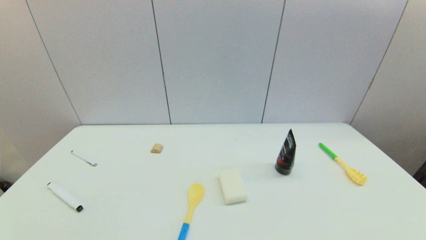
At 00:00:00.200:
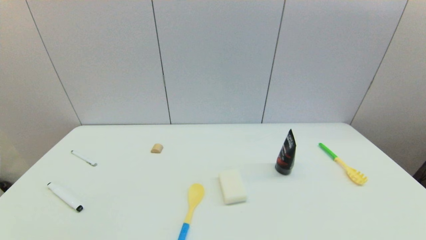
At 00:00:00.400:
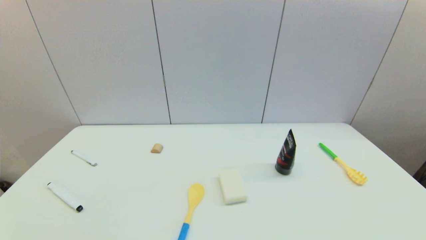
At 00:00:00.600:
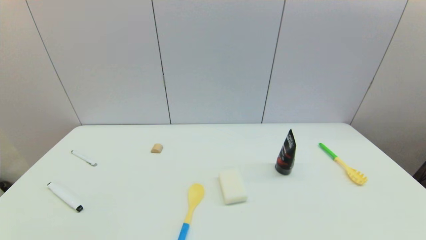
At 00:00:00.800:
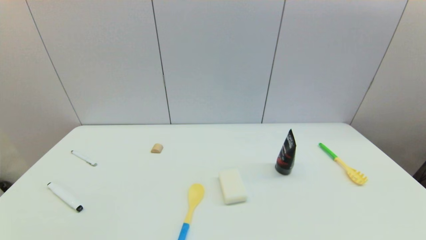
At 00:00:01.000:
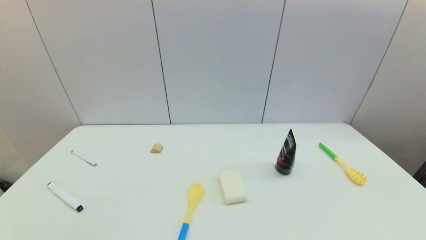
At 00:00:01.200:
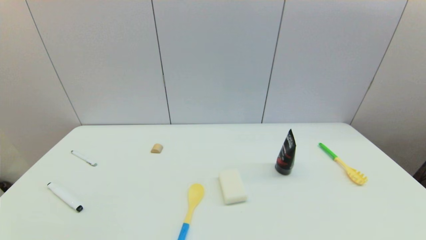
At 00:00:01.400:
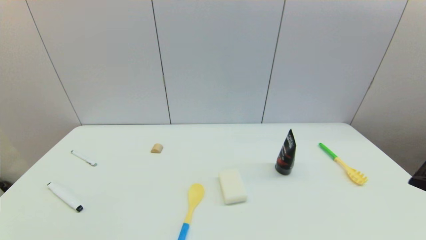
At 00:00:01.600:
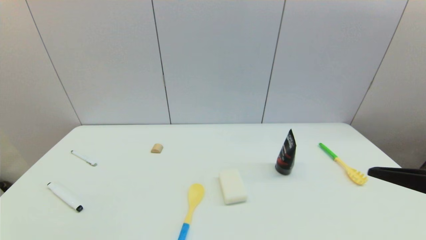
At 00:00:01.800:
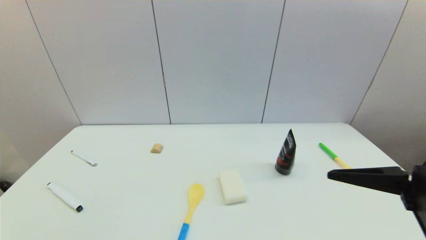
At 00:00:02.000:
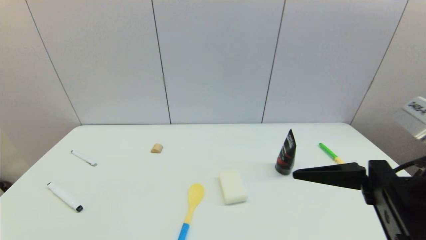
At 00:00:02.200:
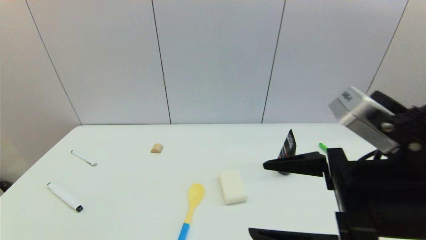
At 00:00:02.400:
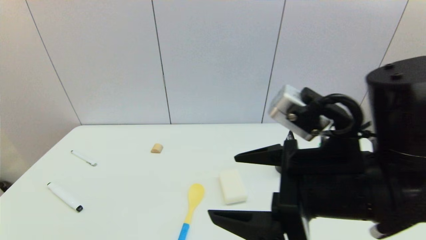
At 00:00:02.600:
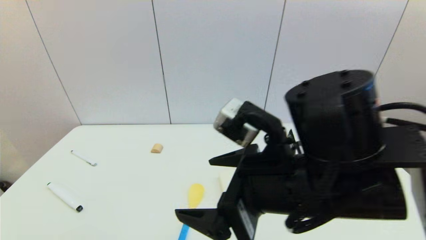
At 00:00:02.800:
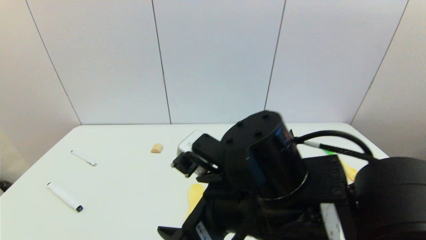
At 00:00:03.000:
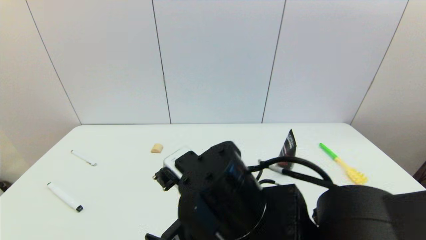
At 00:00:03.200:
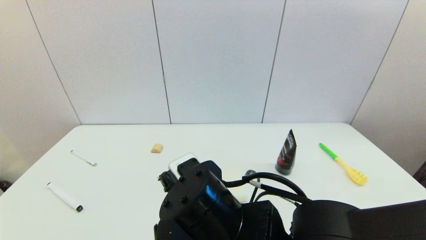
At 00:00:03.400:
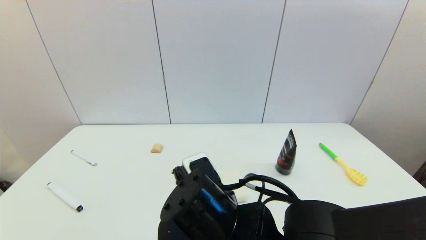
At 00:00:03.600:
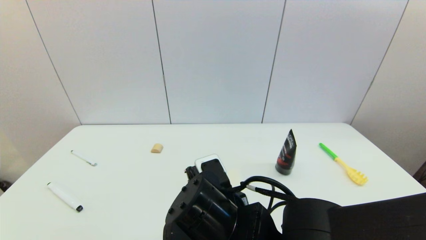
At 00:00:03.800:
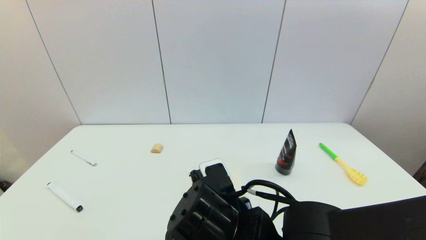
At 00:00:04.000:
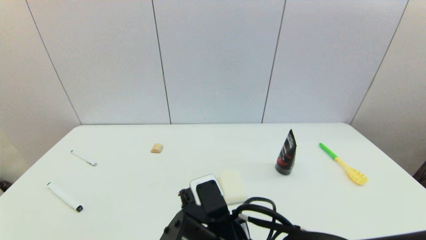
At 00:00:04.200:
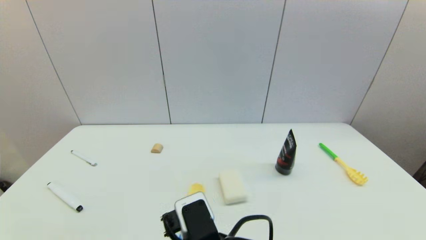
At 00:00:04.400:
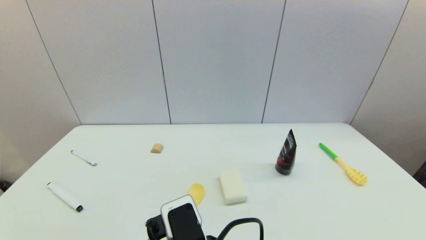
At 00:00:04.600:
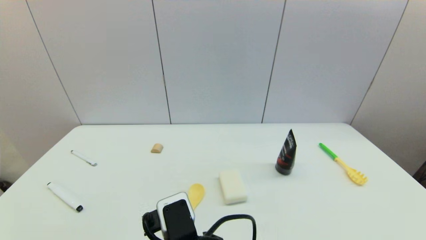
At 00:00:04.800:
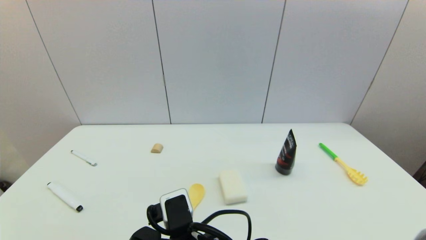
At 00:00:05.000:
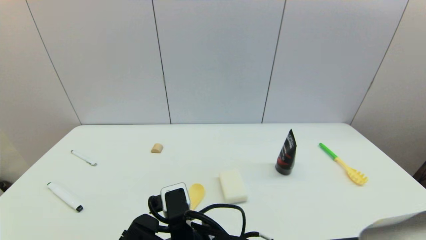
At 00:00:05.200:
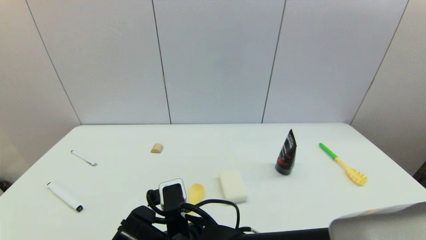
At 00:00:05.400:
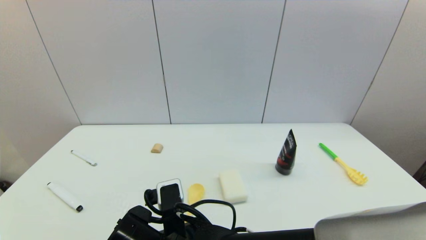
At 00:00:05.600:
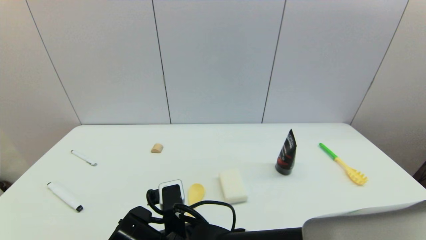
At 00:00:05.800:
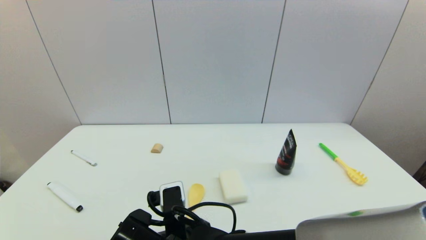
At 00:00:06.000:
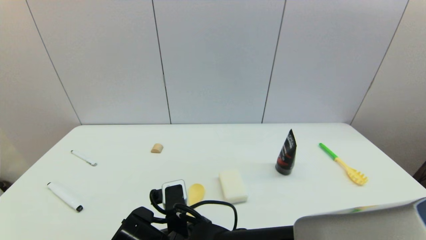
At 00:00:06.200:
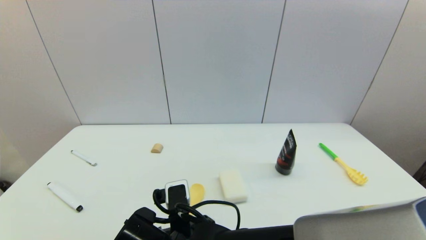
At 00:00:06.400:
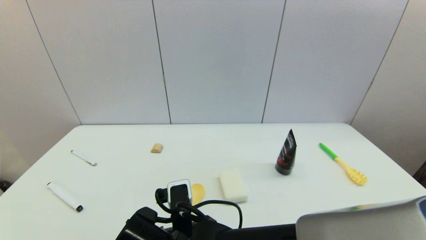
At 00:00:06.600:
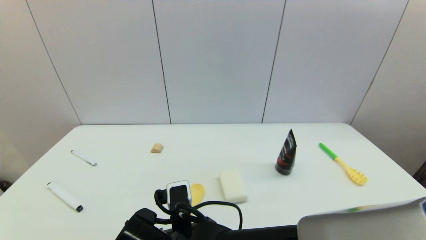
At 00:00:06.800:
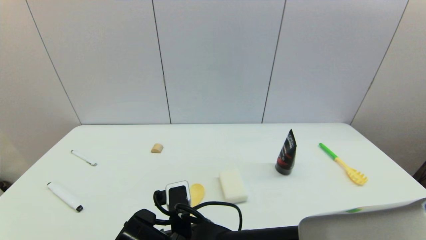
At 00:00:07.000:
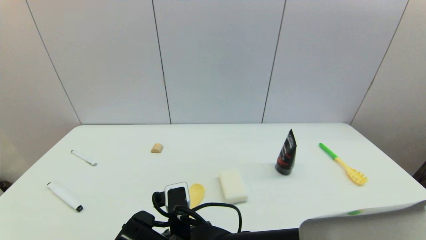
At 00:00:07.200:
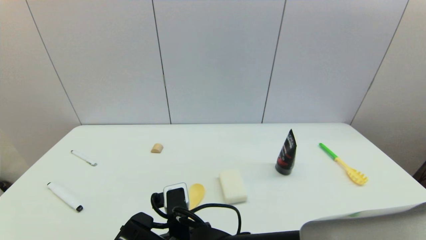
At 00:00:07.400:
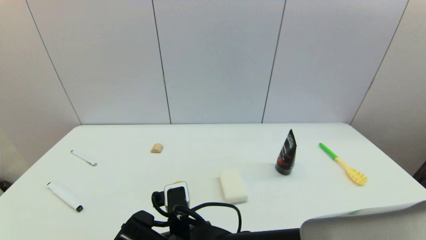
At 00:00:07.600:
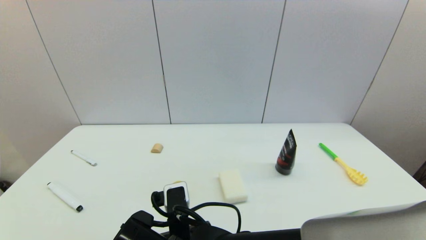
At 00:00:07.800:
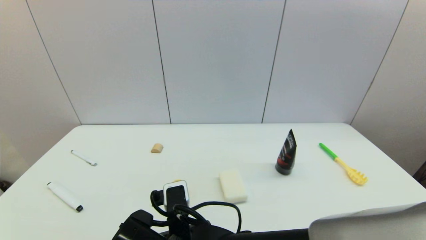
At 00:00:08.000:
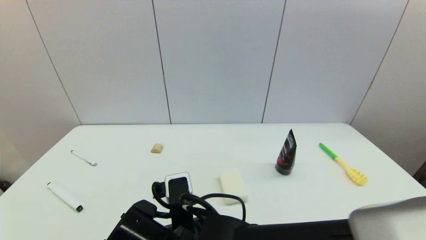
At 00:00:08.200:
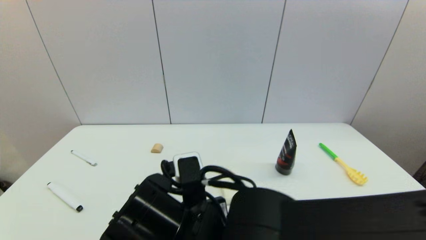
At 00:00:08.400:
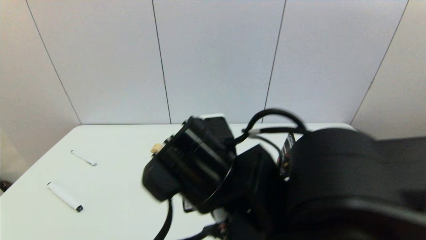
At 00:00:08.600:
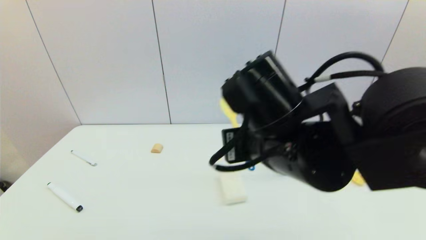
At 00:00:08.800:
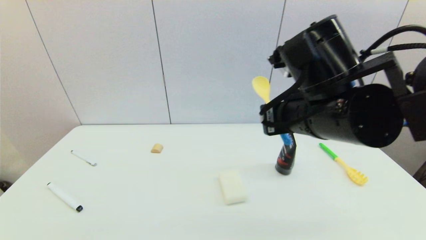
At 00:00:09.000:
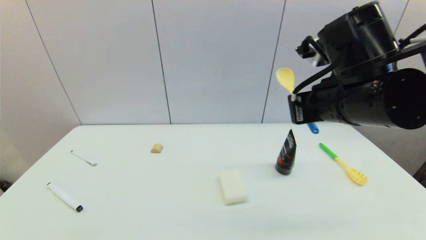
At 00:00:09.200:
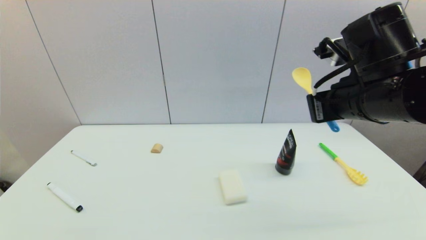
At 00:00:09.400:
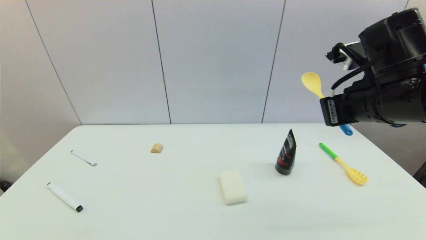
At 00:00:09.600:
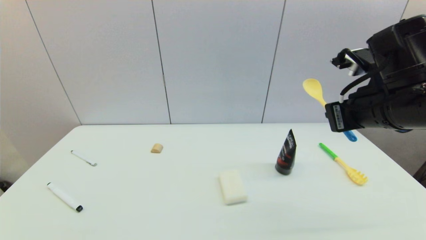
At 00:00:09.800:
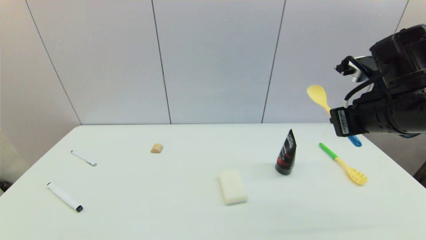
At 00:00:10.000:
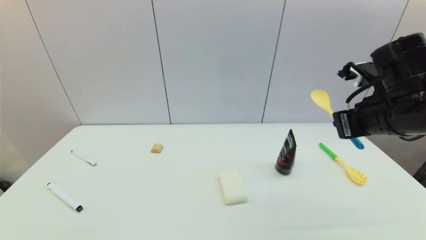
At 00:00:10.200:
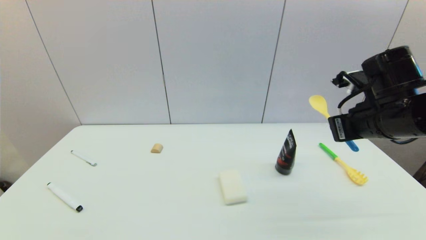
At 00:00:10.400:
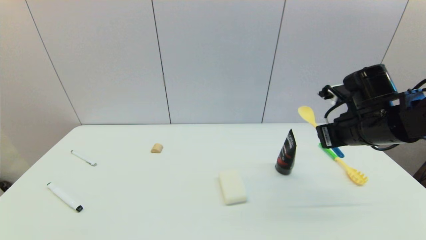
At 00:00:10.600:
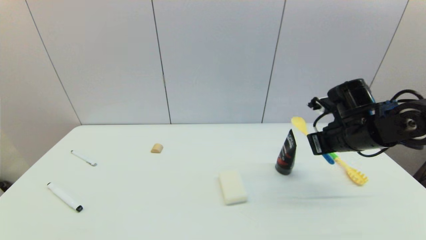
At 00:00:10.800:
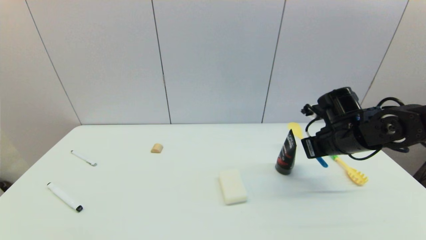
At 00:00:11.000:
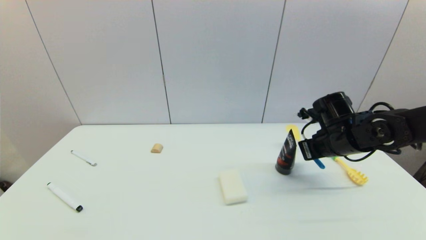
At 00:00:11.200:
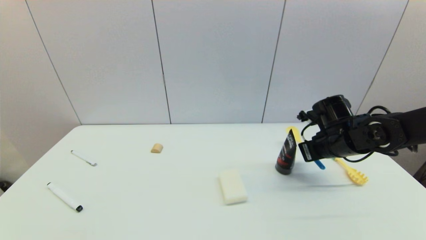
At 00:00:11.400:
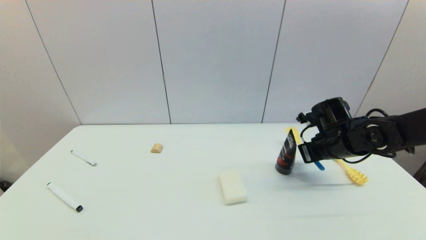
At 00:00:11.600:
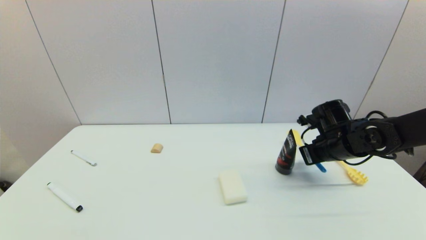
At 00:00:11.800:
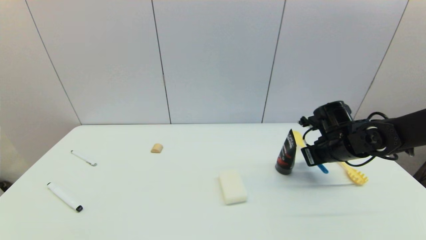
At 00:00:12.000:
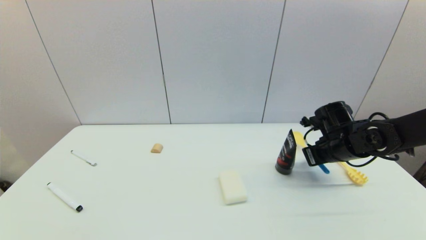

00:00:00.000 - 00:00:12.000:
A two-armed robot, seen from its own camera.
Step, 00:00:01.200 - 00:00:07.400: Grasp the spoon with right gripper.
00:00:00.000 - 00:00:01.600: The right gripper travels upward, forward and to the left by about 20 cm.
00:00:01.600 - 00:00:03.000: The right gripper goes approximately 25 cm to the left.
00:00:03.000 - 00:00:04.400: The right gripper heads backward, covering about 5 cm.
00:00:04.400 - 00:00:06.000: The right gripper heads forward and downward, covering roughly 10 cm.
00:00:06.000 - 00:00:07.600: The right gripper closes up.
00:00:07.600 - 00:00:09.000: The right gripper goes some 30 cm to the right, upward and forward.
00:00:09.000 - 00:00:10.400: The right gripper shifts roughly 15 cm to the right, downward and forward.
00:00:10.400 - 00:00:12.000: The right gripper moves downward, some 10 cm.

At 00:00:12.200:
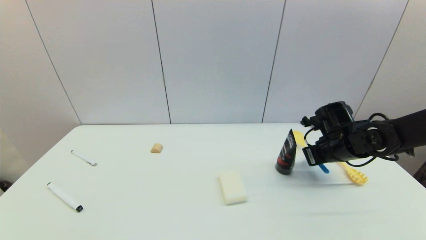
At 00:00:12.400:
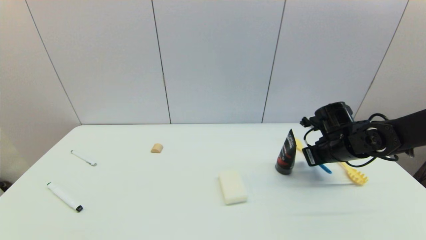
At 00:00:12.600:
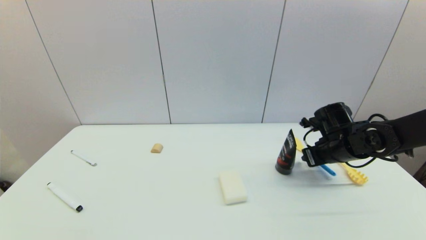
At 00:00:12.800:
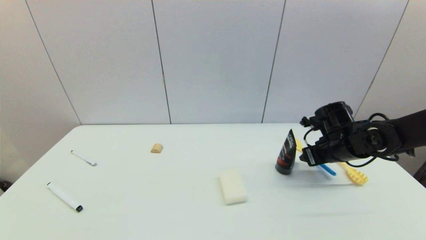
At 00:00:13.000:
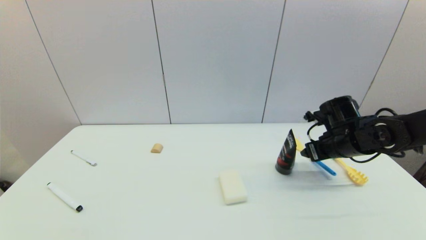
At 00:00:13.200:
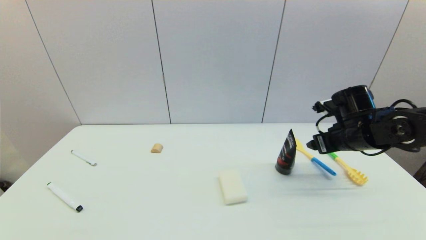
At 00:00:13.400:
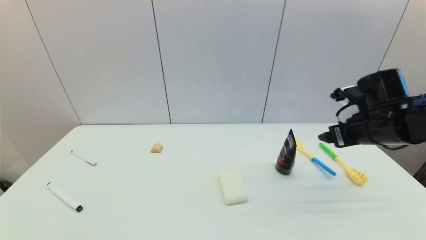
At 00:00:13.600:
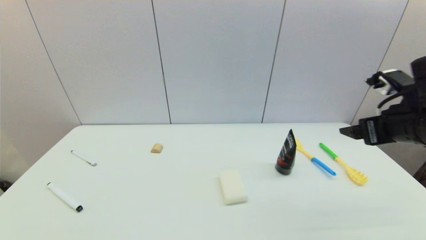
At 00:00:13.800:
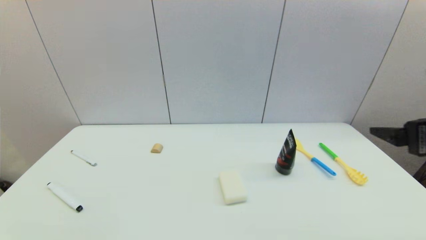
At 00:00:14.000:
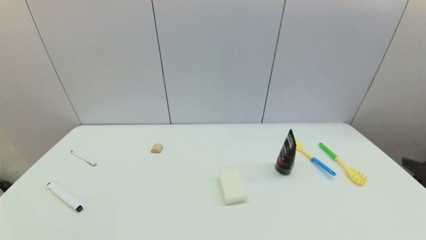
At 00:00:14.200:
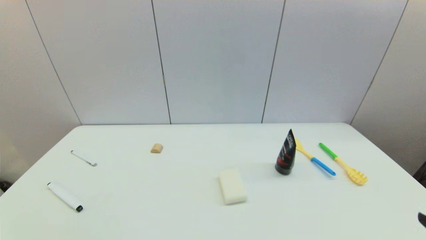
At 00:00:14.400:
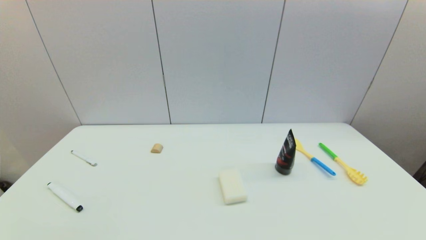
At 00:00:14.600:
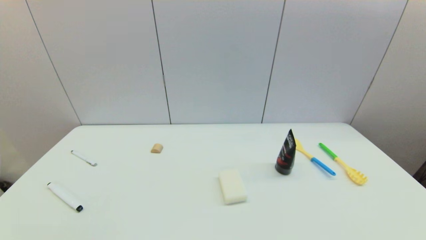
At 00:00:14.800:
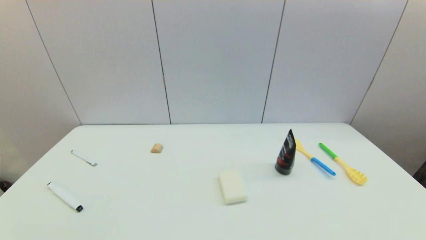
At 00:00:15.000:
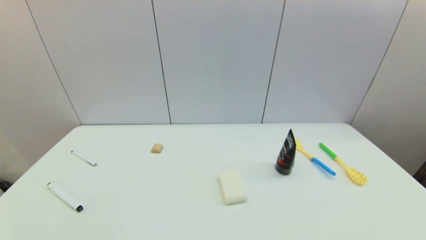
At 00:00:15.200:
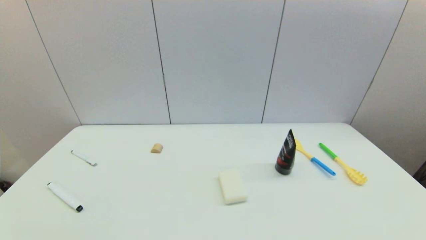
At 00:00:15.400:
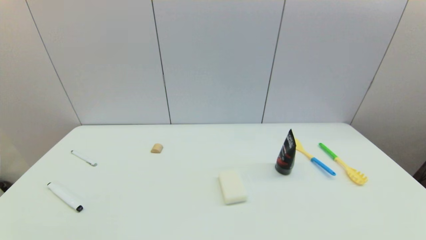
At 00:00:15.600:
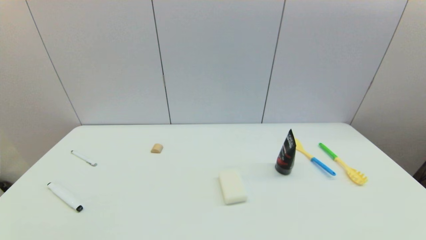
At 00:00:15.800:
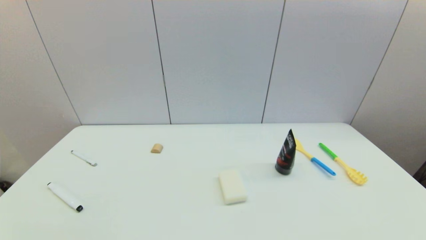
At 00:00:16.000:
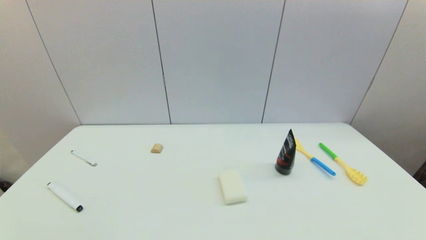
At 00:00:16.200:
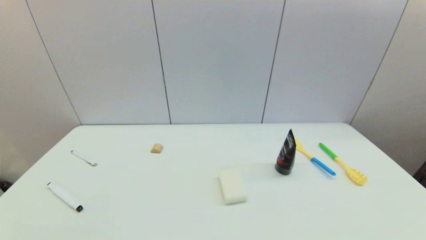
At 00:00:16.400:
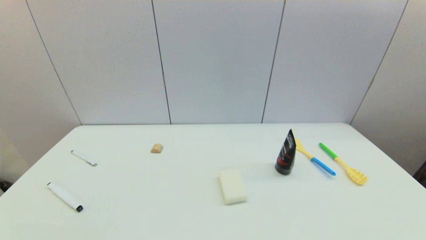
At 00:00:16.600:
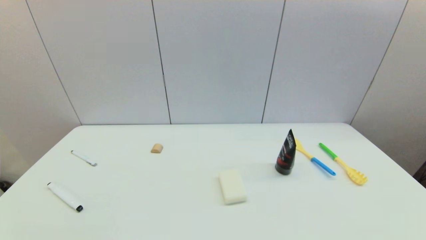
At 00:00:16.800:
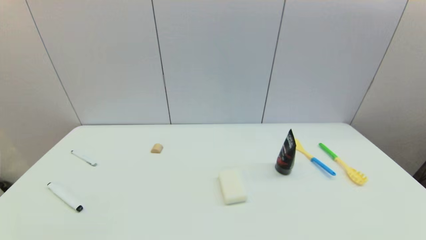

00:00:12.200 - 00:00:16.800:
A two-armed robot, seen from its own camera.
00:00:12.200 - 00:00:13.800: The right gripper moves backward and upward, about 25 cm, and opens up.
00:00:13.800 - 00:00:15.200: The right gripper moves downward and backward, some 25 cm.
00:00:15.200 - 00:00:16.800: Both grippers stay put.
